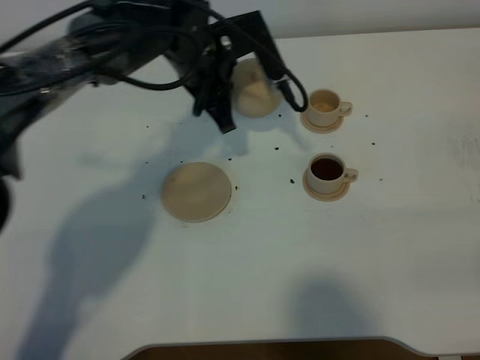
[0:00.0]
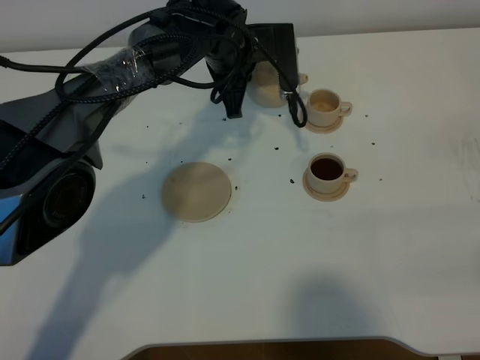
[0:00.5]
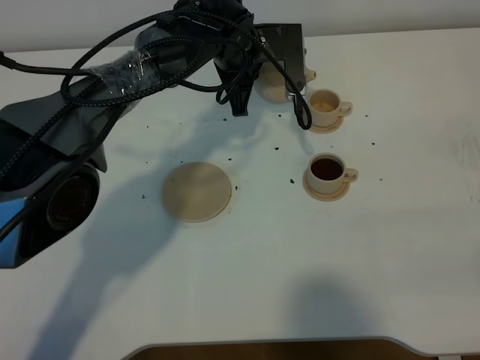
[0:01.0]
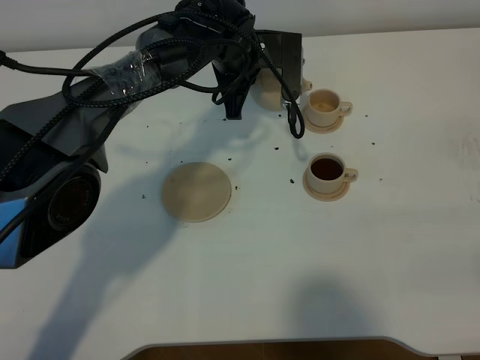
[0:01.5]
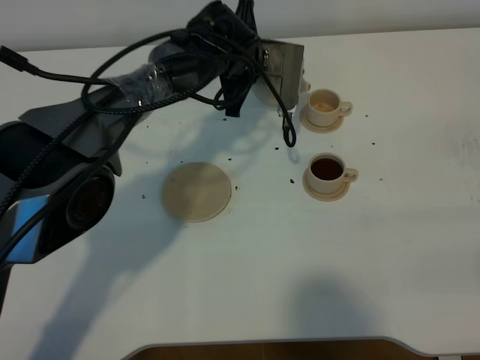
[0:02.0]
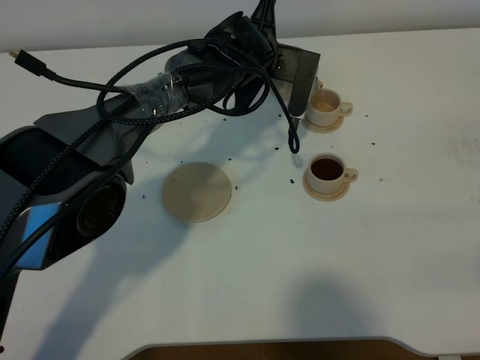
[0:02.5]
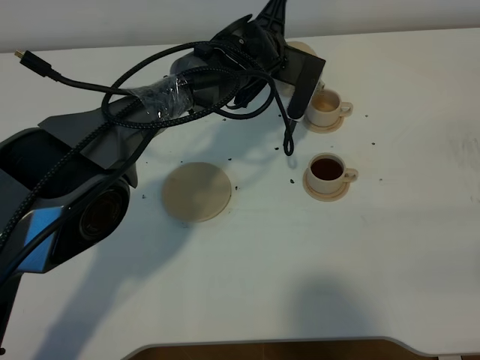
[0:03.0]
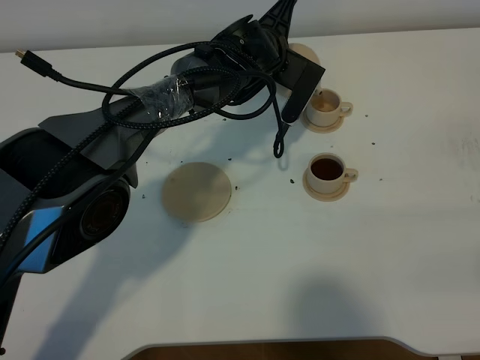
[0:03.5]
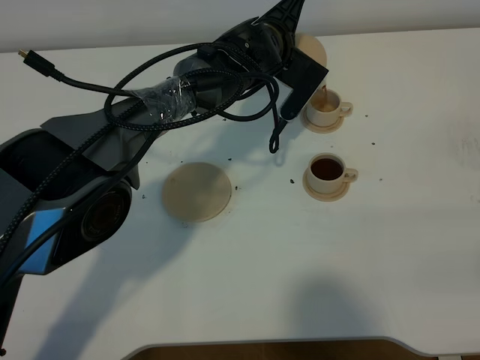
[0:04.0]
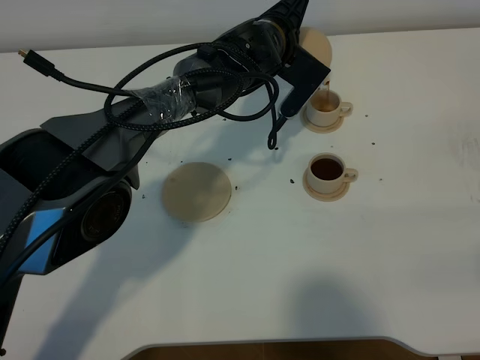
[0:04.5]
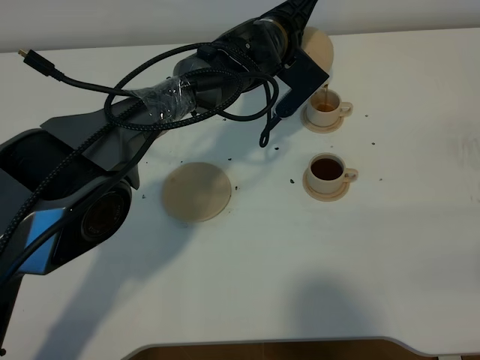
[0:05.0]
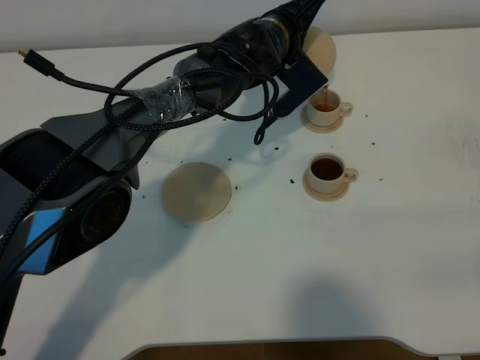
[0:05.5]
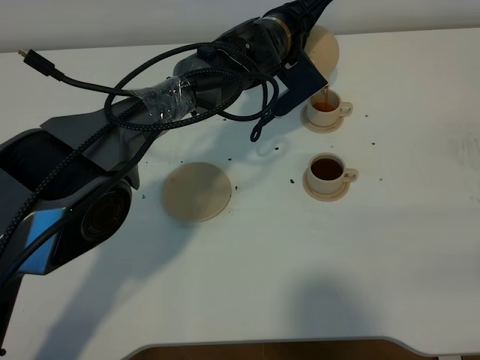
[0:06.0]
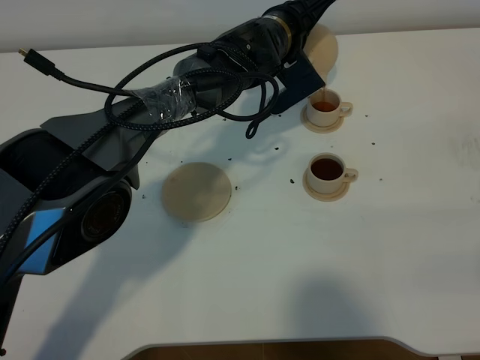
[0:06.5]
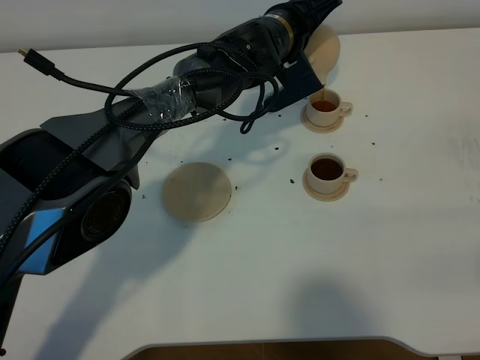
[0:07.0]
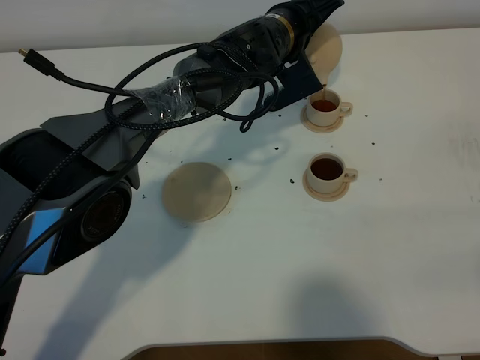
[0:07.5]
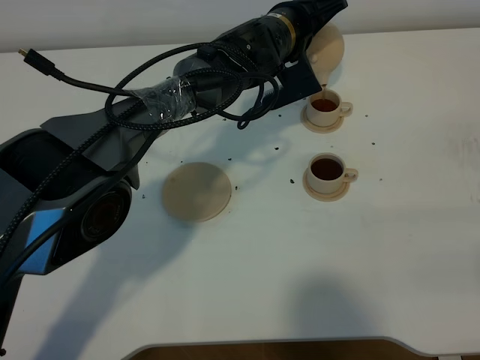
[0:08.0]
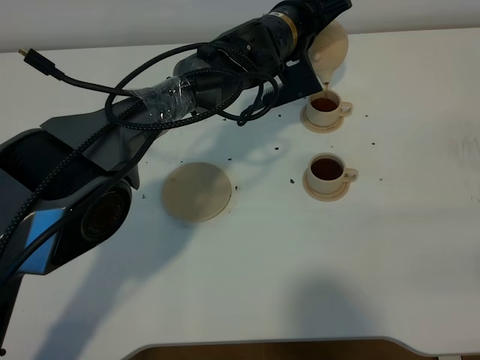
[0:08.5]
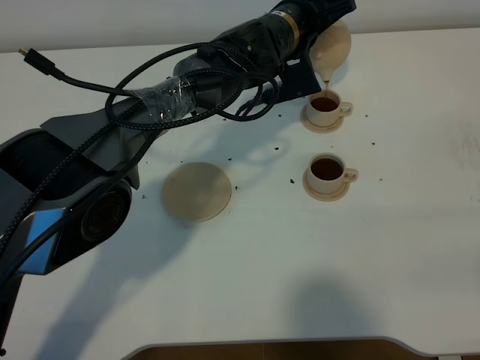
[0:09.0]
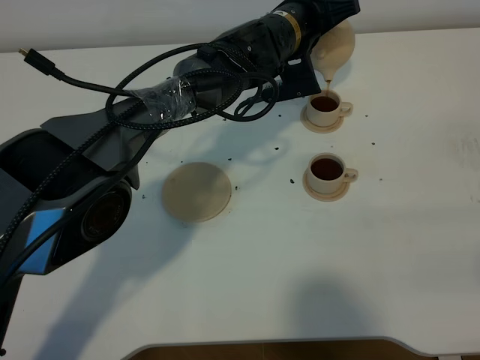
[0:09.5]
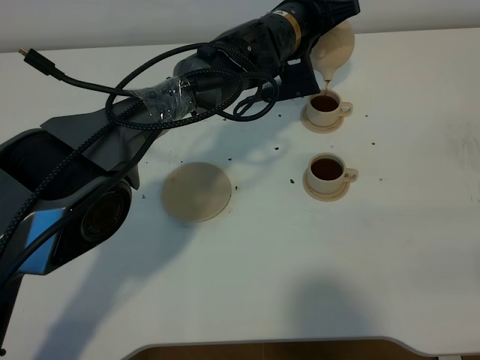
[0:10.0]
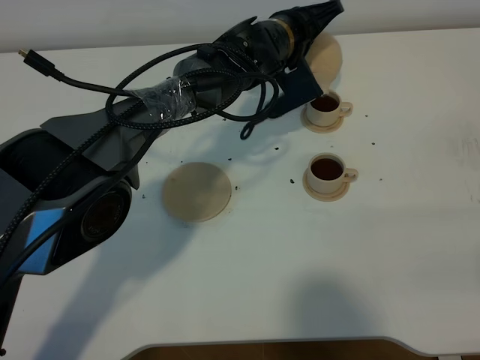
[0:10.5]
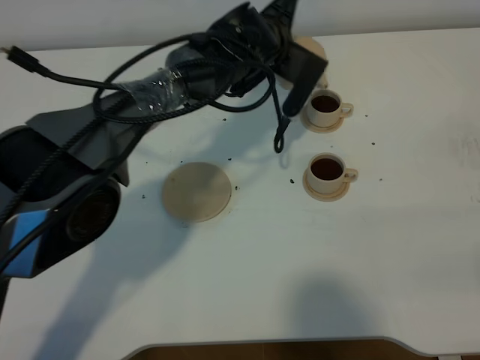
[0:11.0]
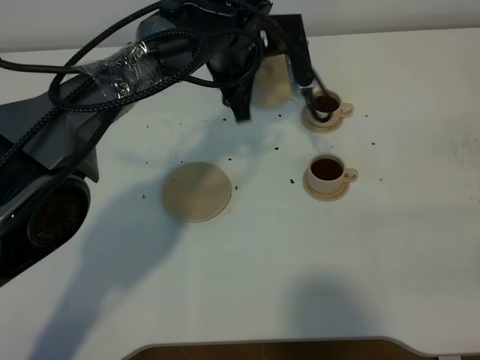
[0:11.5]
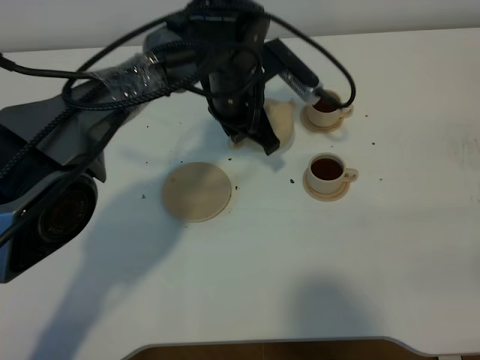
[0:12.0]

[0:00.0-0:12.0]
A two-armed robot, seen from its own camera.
Task of the whole recording: grasp the brown teapot and pour the tea into the two brown teacups one by one, put the brown teapot back in its original place.
Step, 0:00.0 to 0:11.0: Pour tea into the teacup with the left gripper.
0:00.0 to 0:02.0: The left gripper goes some 10 cm downward and forward.
0:04.0 to 0:06.0: The grippers stay close to where they were, moving slightly.
0:06.0 to 0:08.0: The grippers make only small movements.
0:08.0 to 0:10.0: The grippers move only a little.
0:10.0 to 0:12.0: The left gripper moves to the left and backward, approximately 10 cm.

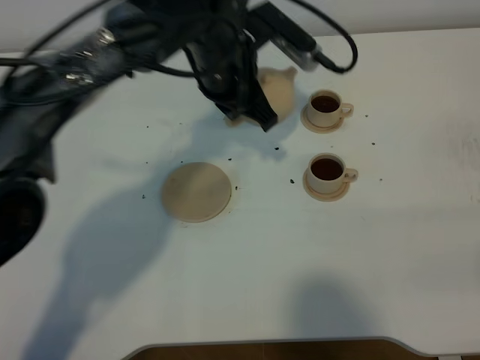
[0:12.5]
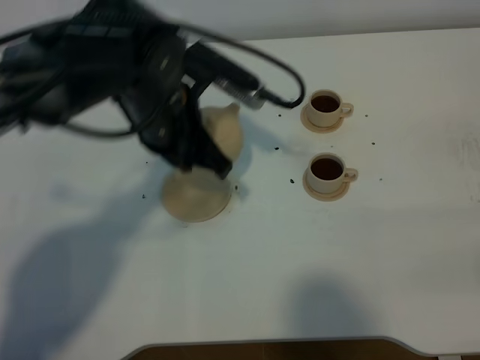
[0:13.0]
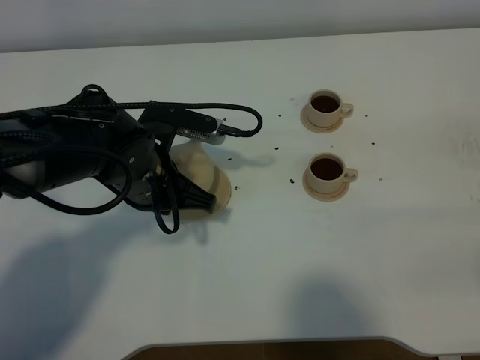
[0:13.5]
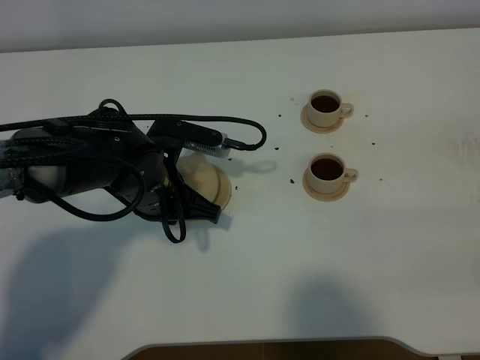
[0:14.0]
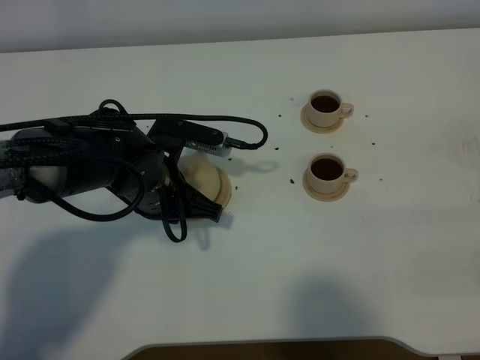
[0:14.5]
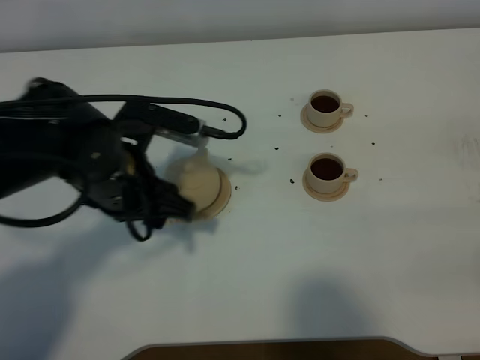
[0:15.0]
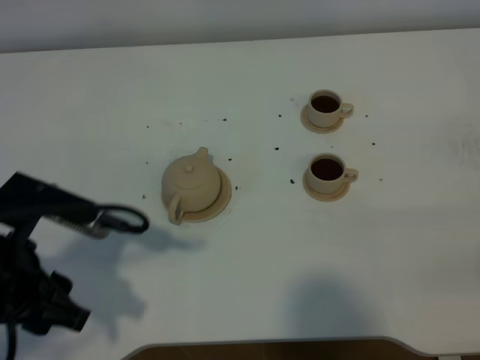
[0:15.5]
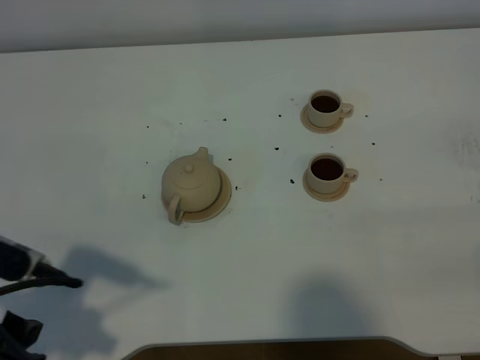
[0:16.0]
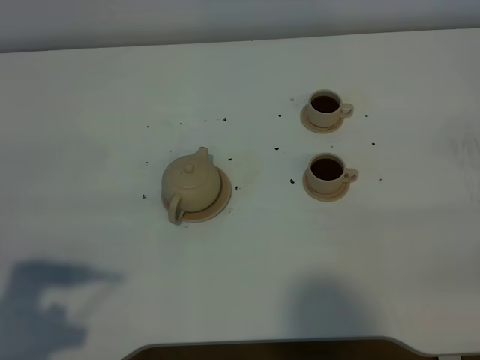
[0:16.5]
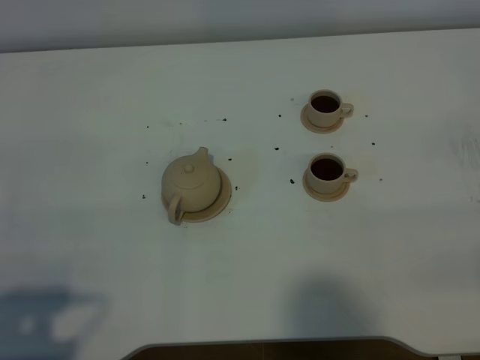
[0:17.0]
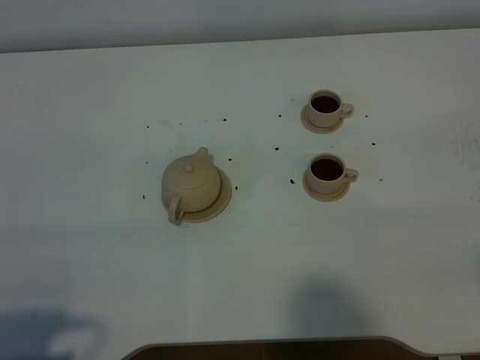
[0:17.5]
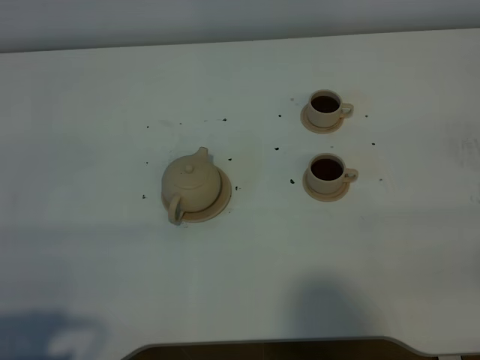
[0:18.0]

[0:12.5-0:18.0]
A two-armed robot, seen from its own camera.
Task of the whole recording: grasp the brown teapot and pour the tea into the two brown teacups one by one, put the brown teapot back in its original place.
0:12.5 to 0:14.5: The left gripper shifts about 15 cm downward, backward and to the left.
0:14.5 to 0:16.0: The left gripper goes approximately 25 cm backward, to the left and upward, and opens up.
0:16.0 to 0:18.0: The left gripper shifts approximately 10 cm backward.

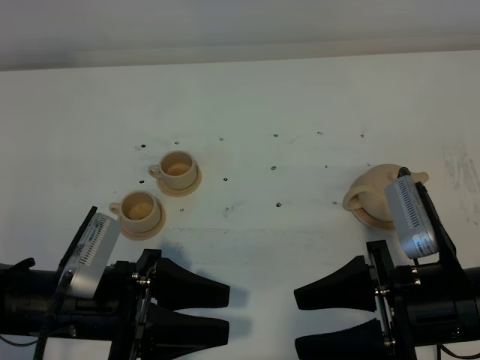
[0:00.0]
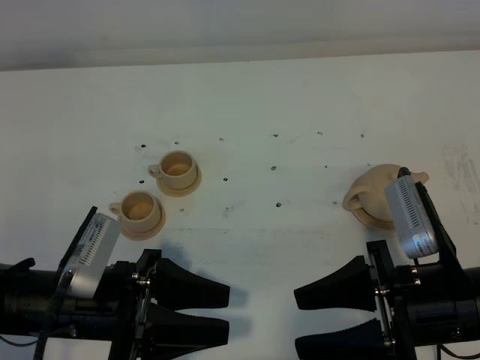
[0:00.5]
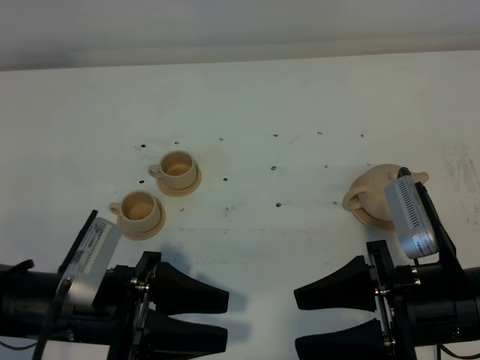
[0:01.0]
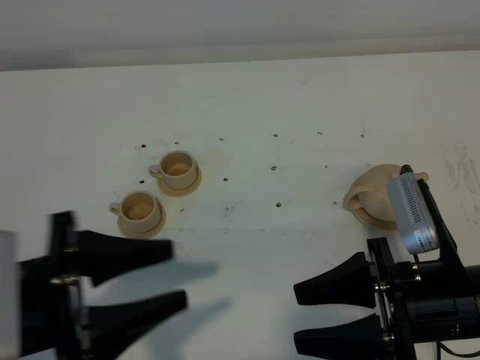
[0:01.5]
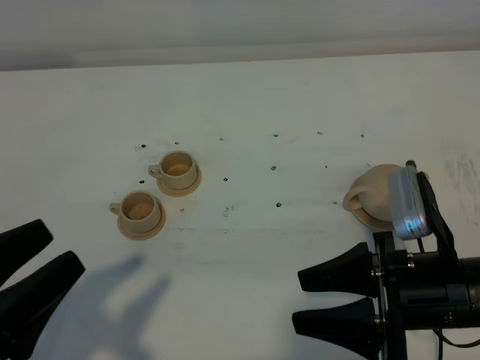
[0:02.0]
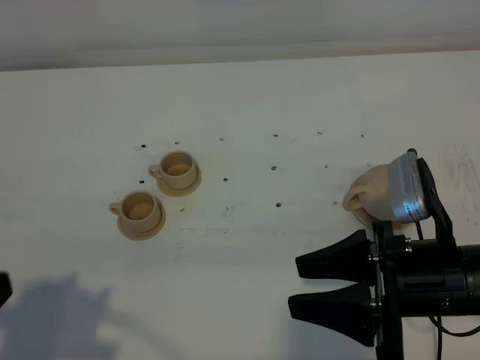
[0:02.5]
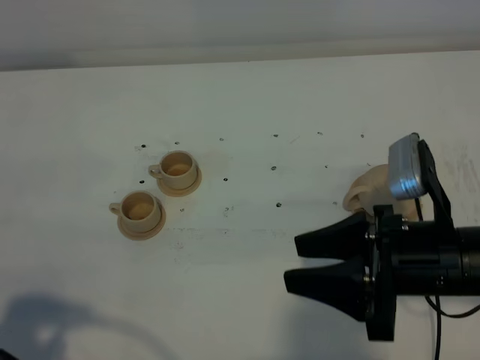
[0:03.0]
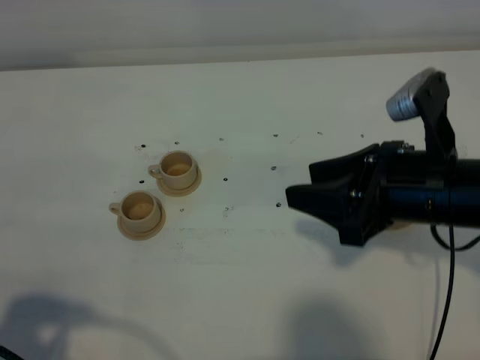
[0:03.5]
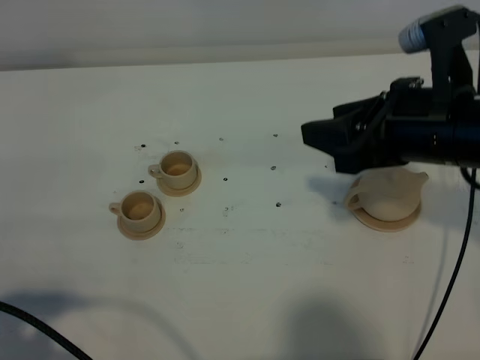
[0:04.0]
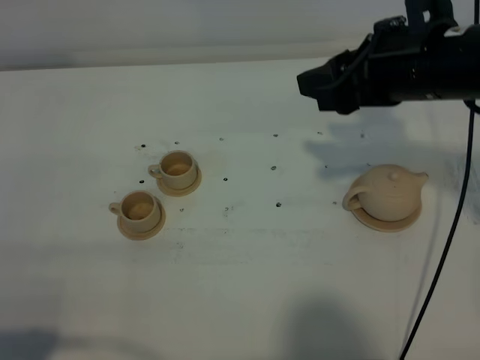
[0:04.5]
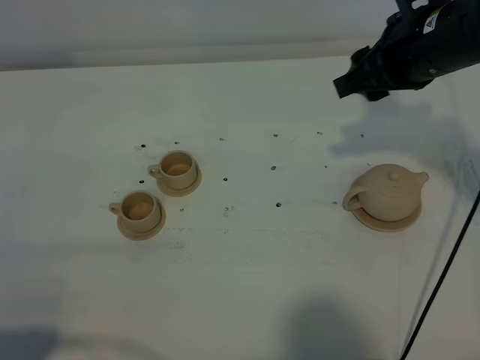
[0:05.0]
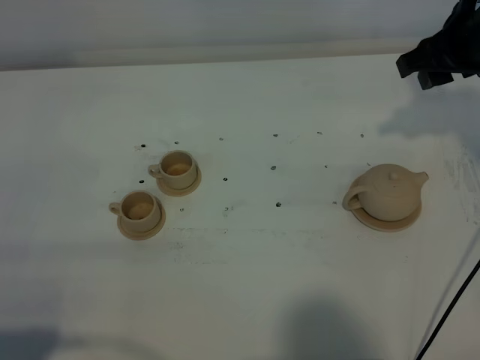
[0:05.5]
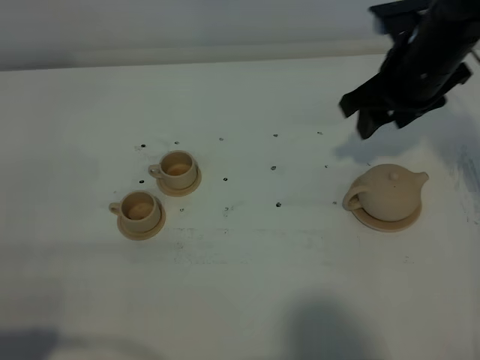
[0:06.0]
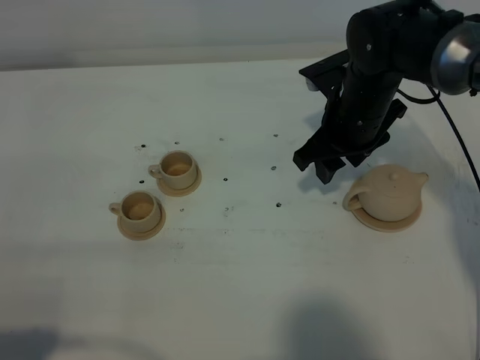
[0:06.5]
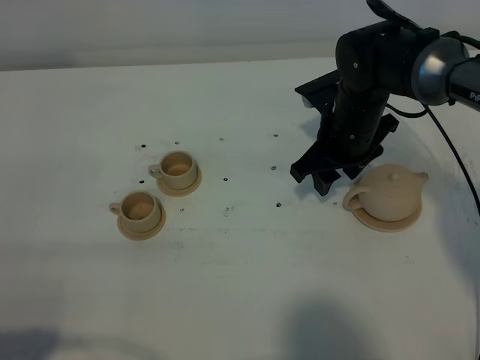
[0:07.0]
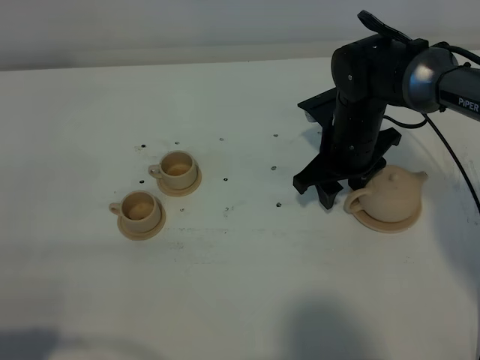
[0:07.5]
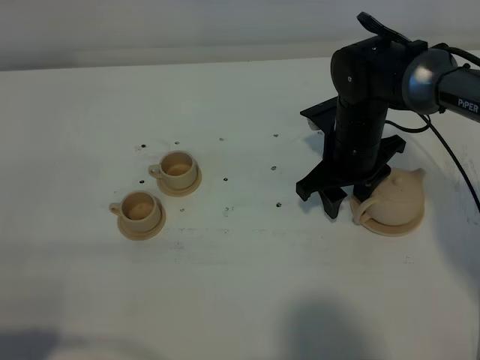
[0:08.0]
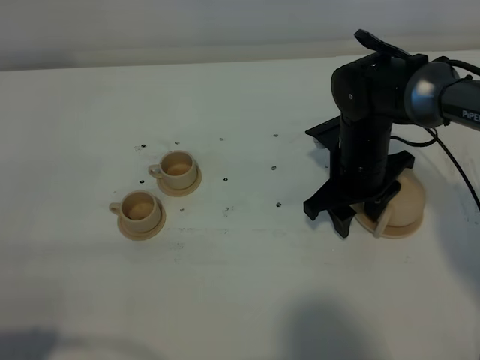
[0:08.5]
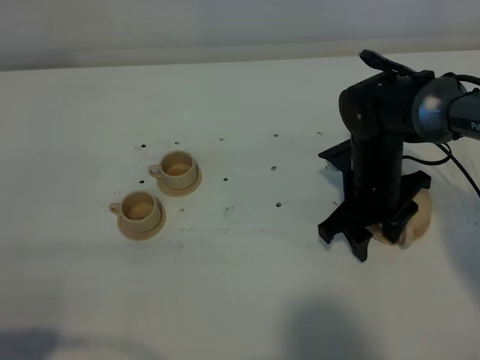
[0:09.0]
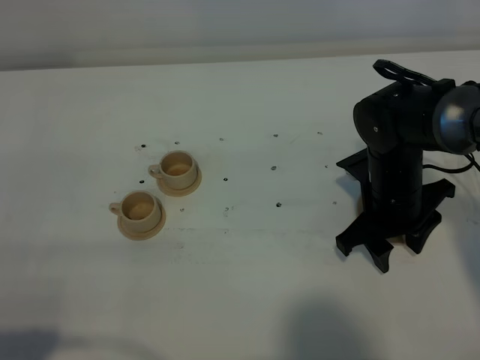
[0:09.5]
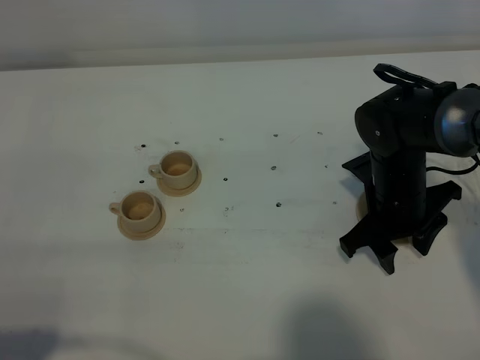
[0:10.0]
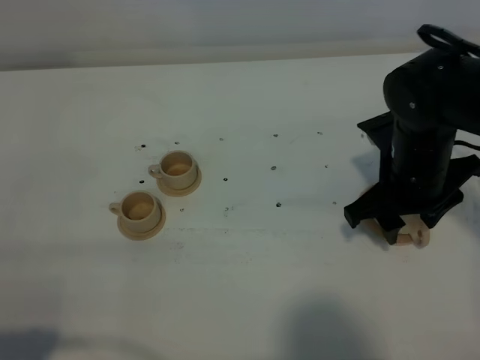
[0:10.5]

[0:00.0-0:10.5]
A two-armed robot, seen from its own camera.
Task of the whole recording: grasp the brown teapot and pour the tea into the two brown teacups one by one, put the brown teapot back in its original place.
0:00.0 to 0:02.0: The left gripper moves upward, backward and to the left, approximately 15 cm.
0:02.0 to 0:04.0: The left gripper changes place by about 5 cm; the right gripper travels forward and upward by some 15 cm.
0:04.0 to 0:06.5: The right gripper shifts roughly 15 cm forward and downward.
0:06.5 to 0:08.5: The right gripper moves about 5 cm.
0:08.5 to 0:10.5: The right gripper travels backward and upward by about 10 cm.
